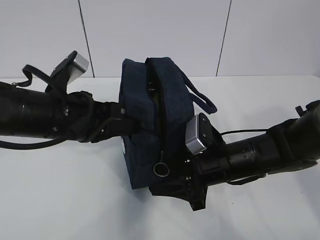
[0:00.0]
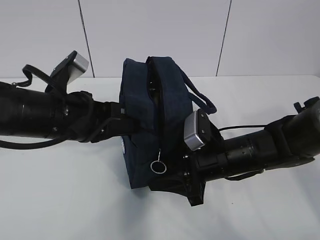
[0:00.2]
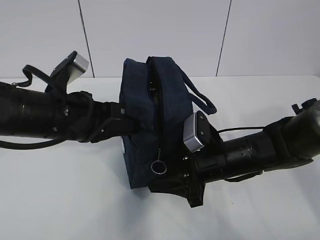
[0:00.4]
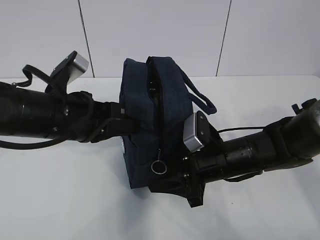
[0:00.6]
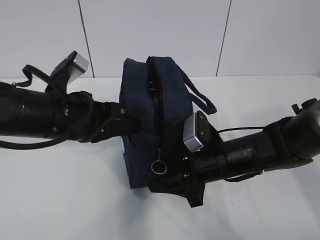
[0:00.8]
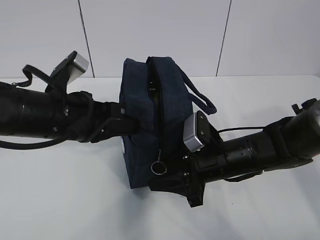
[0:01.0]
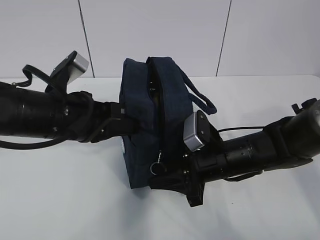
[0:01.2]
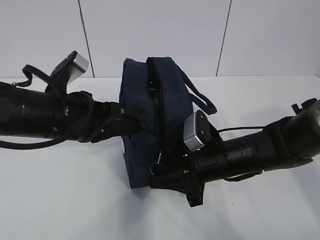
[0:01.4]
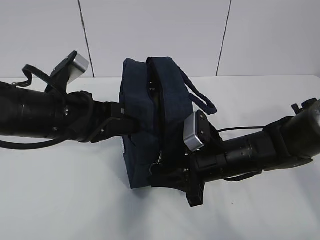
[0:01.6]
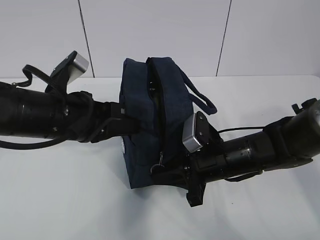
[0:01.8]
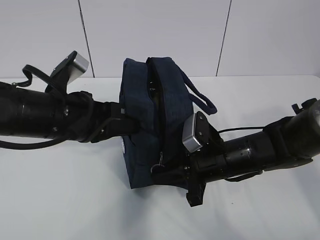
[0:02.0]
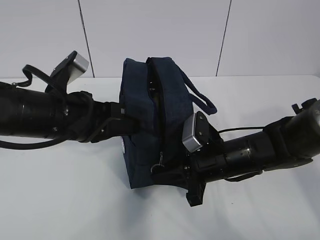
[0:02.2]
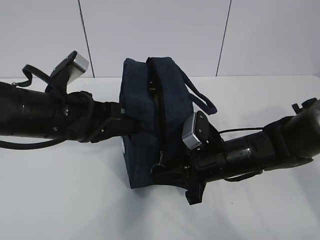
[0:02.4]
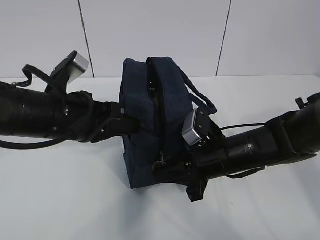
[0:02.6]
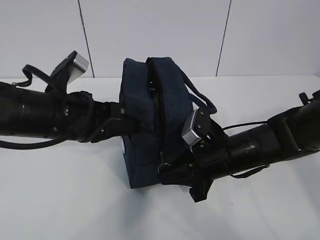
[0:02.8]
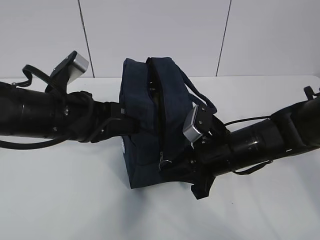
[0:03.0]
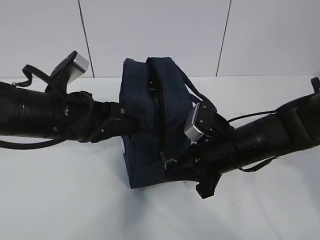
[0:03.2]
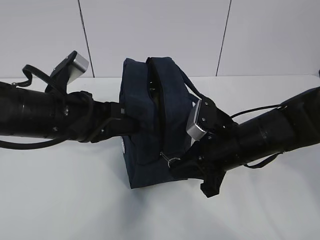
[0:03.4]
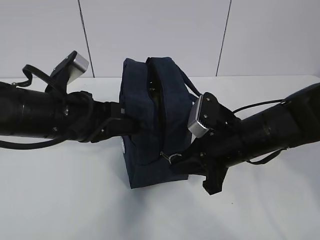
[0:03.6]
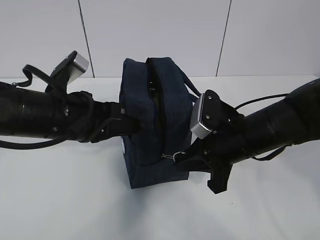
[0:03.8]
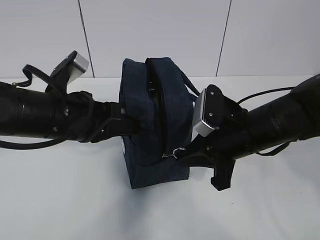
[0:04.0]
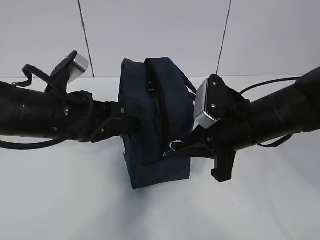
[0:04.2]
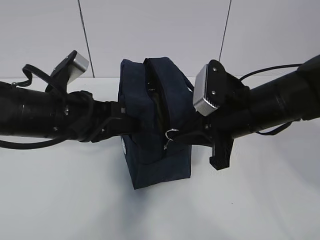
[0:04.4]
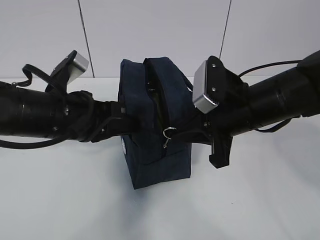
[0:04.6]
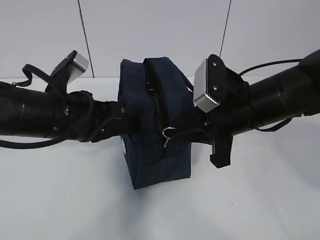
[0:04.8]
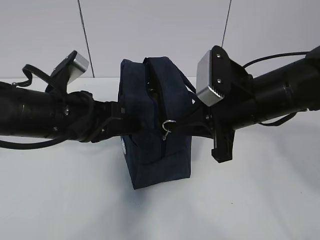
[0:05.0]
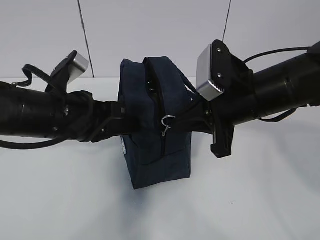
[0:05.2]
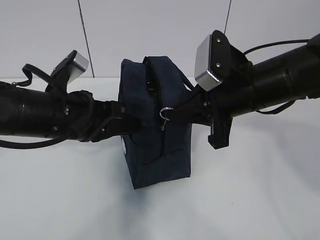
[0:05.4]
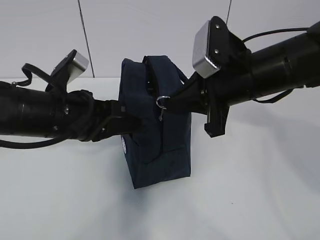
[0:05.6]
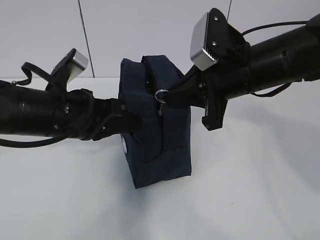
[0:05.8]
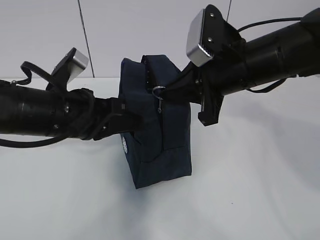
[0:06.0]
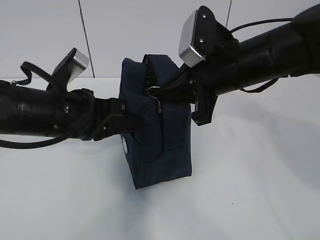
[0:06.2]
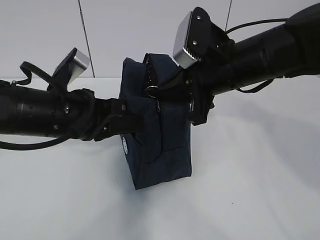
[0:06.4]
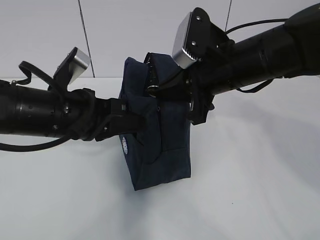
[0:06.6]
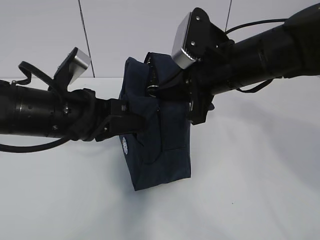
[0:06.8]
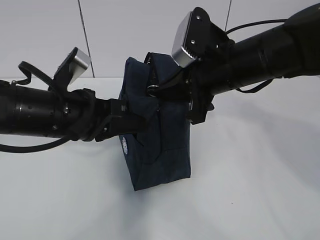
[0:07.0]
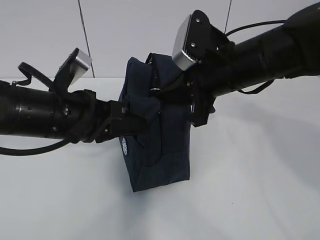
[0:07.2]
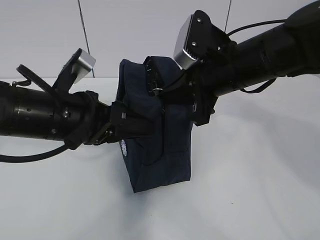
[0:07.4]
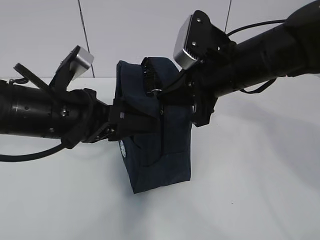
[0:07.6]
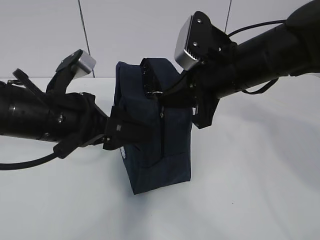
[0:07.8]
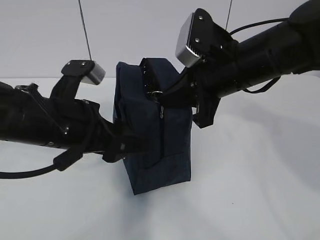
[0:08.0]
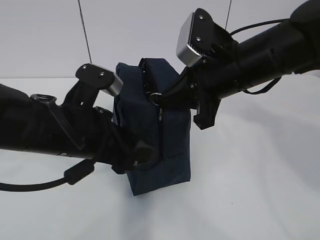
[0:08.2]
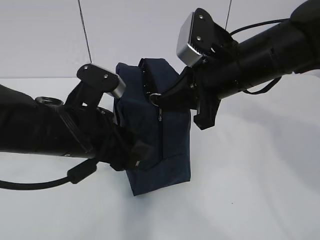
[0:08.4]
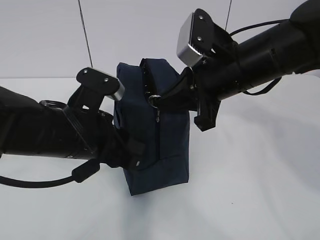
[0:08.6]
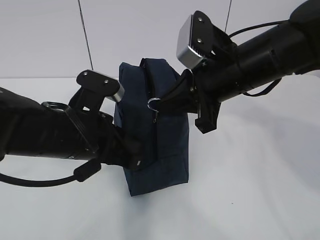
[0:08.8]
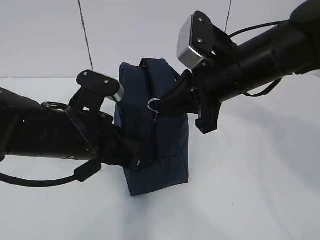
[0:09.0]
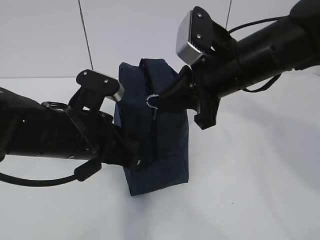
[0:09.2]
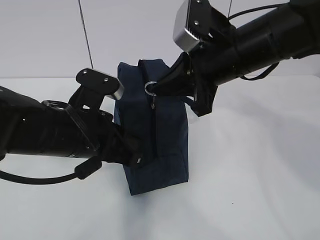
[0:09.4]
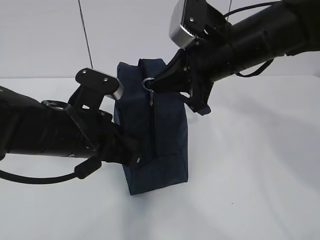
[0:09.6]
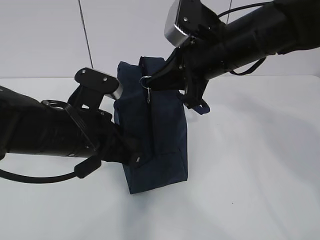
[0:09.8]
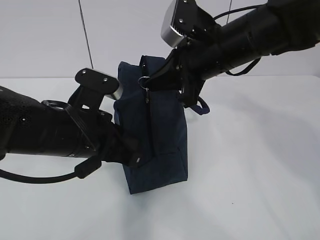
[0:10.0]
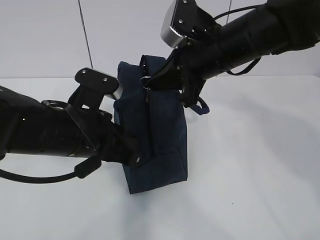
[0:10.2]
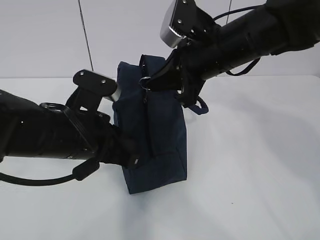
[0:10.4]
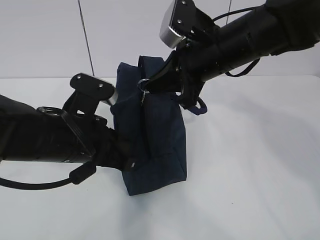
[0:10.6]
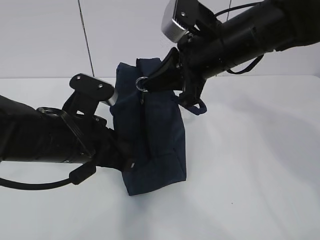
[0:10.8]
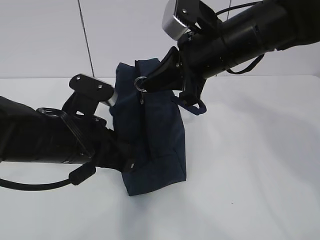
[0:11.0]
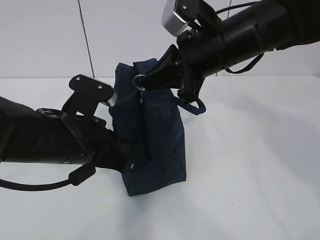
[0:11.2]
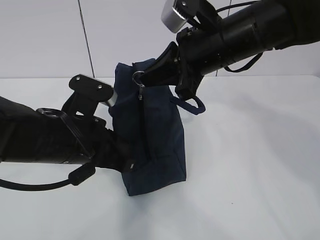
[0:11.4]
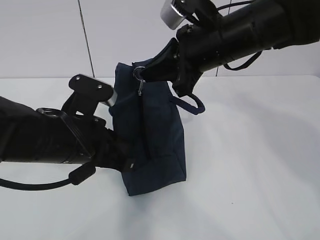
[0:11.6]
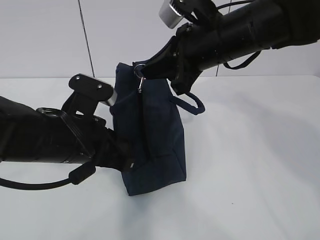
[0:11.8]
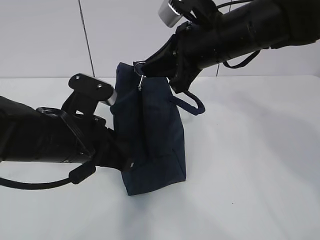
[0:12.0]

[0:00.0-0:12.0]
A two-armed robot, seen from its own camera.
0:00.0 to 0:01.6: Both grippers stay about where they are.
0:01.6 to 0:03.0: The right gripper closes.
0:03.0 to 0:04.4: The right gripper heads upward, covering about 10 cm.
0:04.4 to 0:06.0: The right gripper shifts some 5 cm upward.
0:06.0 to 0:07.6: The left gripper opens up.
0:07.6 to 0:09.0: The left gripper closes.
0:09.0 to 0:12.0: There are only small adjustments of the grippers.

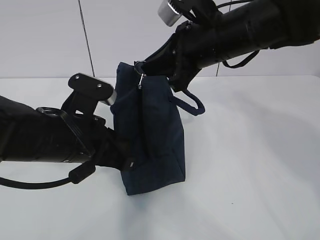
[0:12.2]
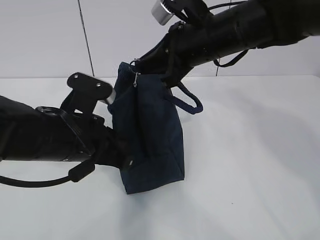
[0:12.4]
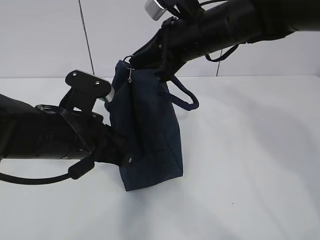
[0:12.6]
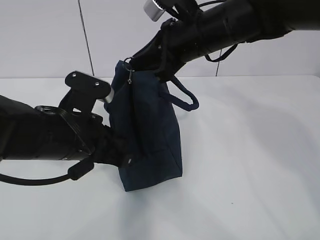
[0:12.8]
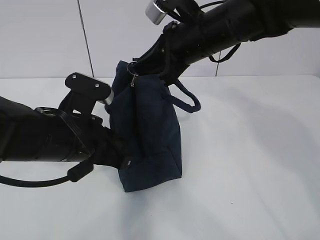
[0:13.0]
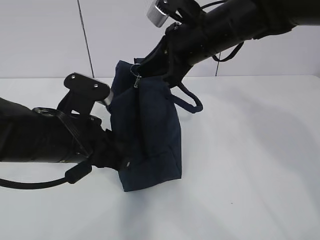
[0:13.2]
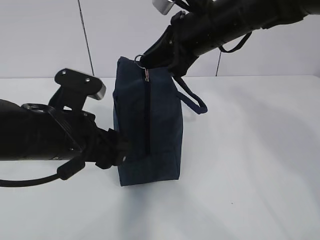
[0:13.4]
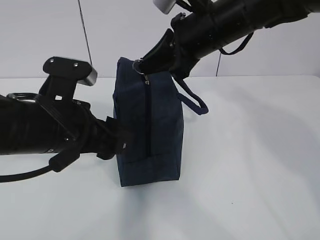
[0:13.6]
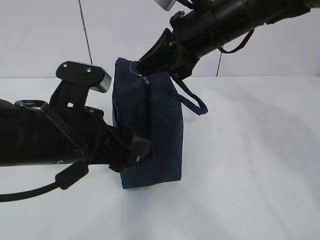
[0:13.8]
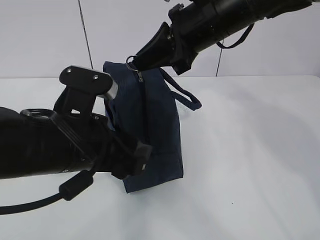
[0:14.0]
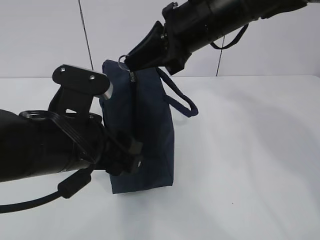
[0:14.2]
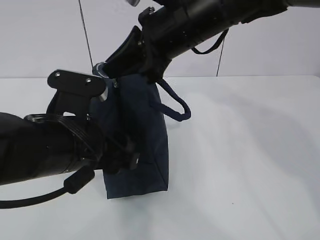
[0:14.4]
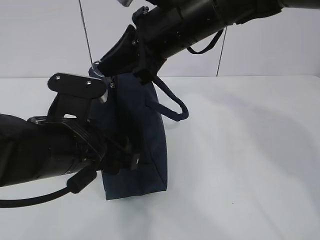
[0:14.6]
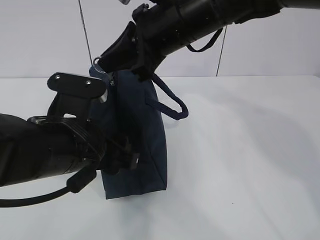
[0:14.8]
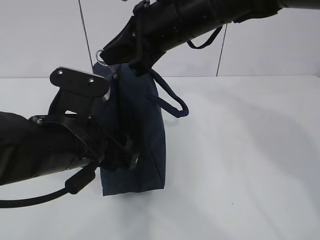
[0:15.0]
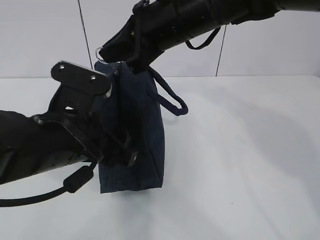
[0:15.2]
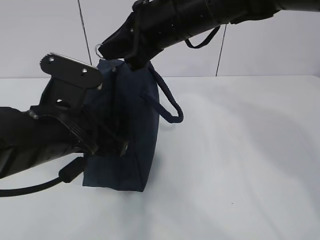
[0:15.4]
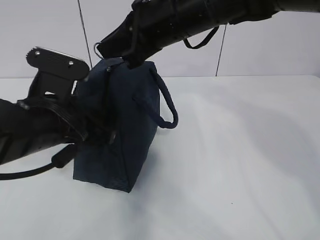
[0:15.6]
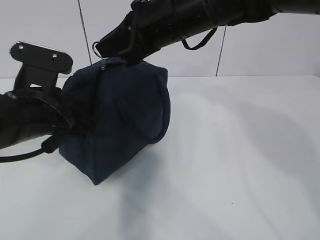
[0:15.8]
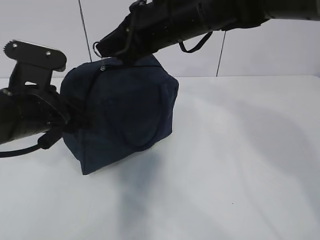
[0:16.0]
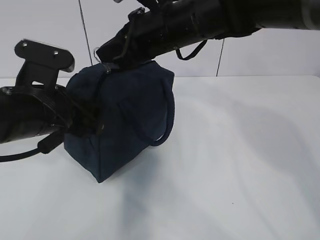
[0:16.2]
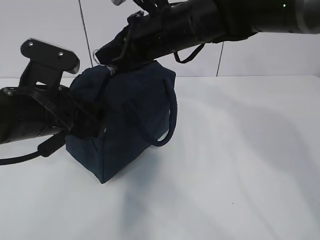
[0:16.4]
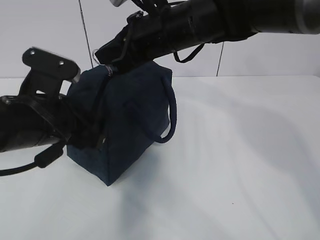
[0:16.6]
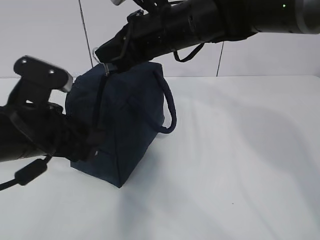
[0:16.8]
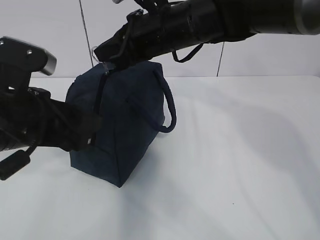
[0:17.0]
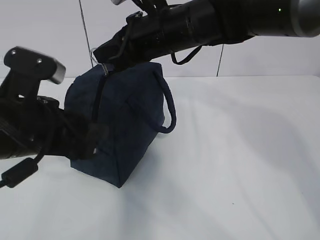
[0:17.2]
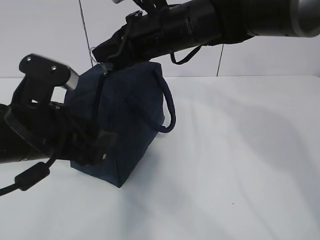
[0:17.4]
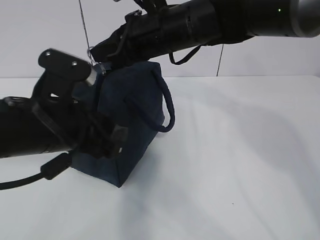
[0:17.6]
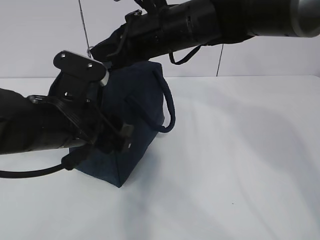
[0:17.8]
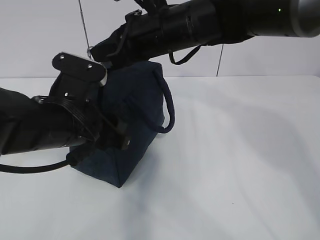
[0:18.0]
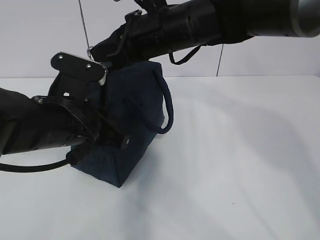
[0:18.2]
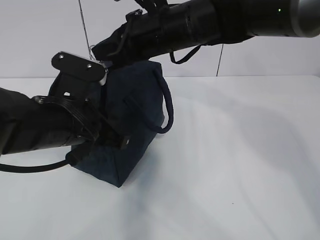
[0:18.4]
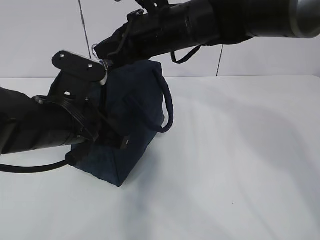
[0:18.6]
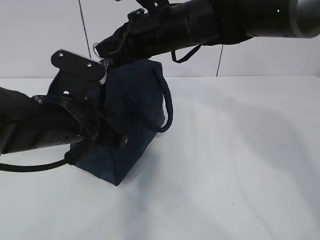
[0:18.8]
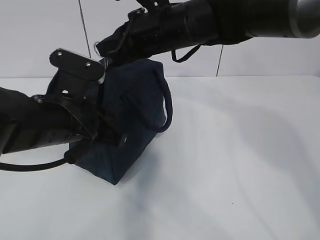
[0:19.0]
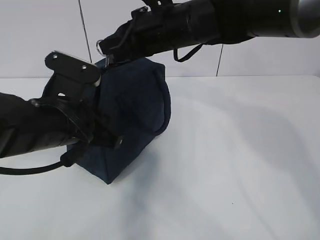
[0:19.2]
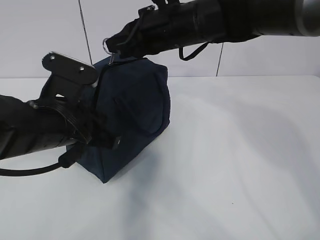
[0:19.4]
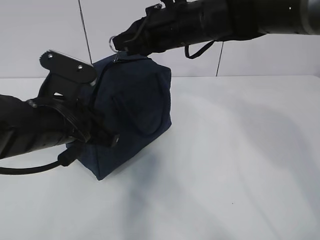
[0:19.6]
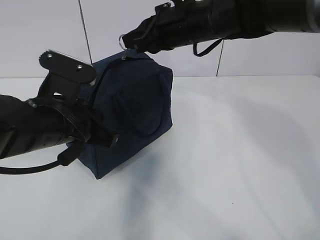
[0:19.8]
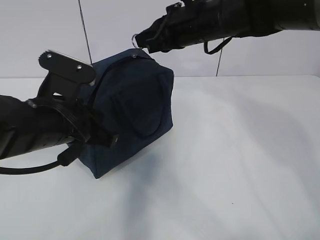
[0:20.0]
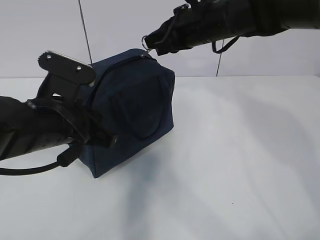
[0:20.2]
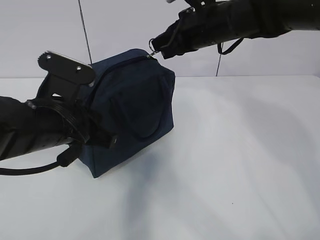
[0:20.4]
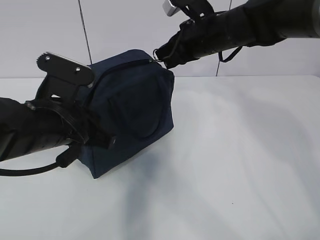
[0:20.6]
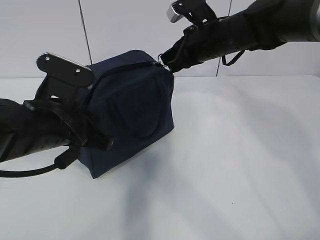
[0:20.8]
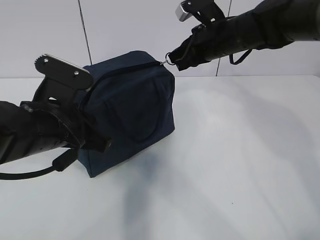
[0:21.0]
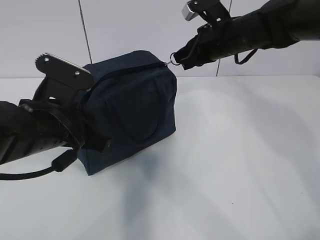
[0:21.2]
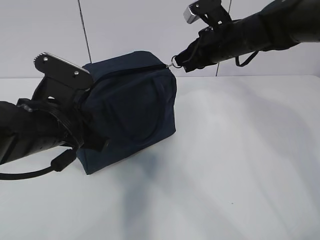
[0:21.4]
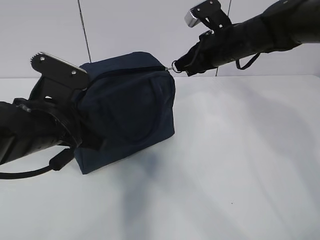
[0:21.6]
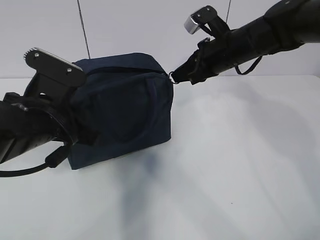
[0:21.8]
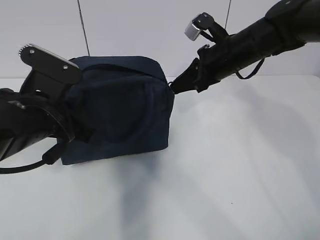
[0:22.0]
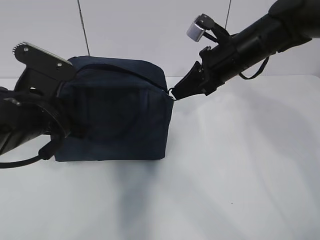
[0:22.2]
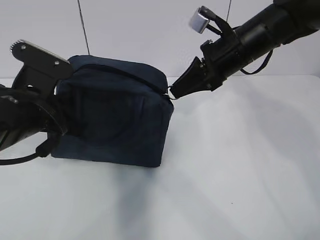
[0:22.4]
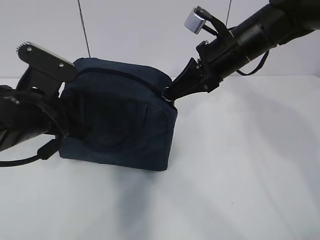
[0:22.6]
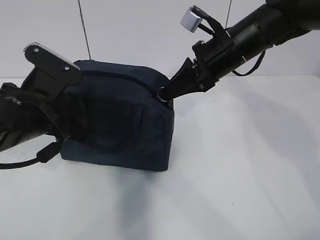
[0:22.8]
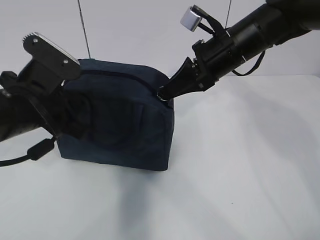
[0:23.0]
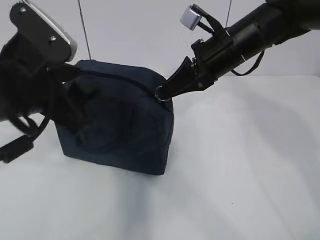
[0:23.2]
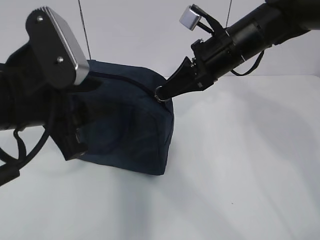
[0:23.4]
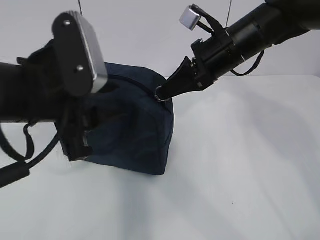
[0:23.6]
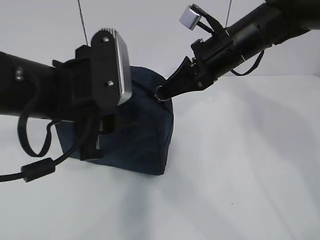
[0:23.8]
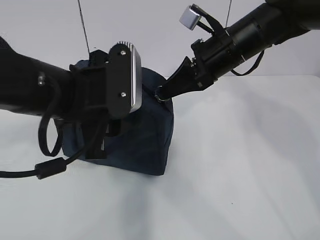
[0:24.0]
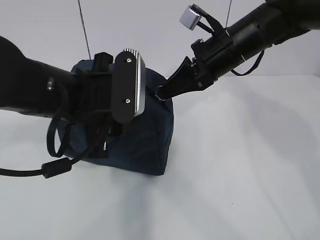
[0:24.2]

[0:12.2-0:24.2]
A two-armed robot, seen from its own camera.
0:12.2 to 0:13.8: The left gripper opens.
0:13.8 to 0:15.2: The right gripper ends up about 5 cm from where it was.
0:15.2 to 0:16.6: The left gripper moves some 5 cm.
0:16.6 to 0:18.2: The left gripper closes up.
0:18.2 to 0:19.8: The right gripper ends up some 5 cm from where it was.
0:19.8 to 0:21.2: The right gripper shifts about 10 cm to the right.
0:21.2 to 0:22.6: The right gripper is displaced backward by roughly 5 cm.
0:22.6 to 0:24.2: The left gripper goes approximately 5 cm to the right, and opens.
